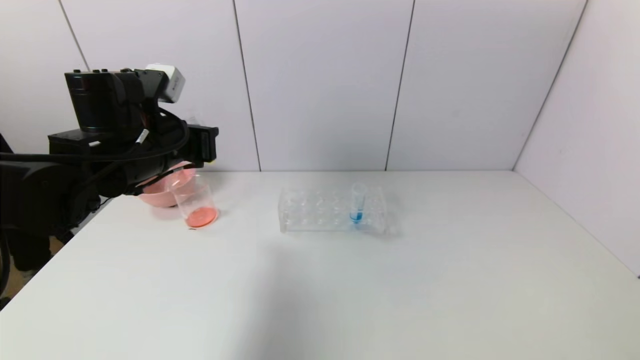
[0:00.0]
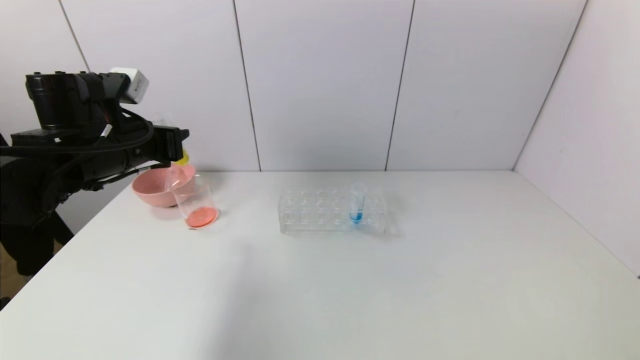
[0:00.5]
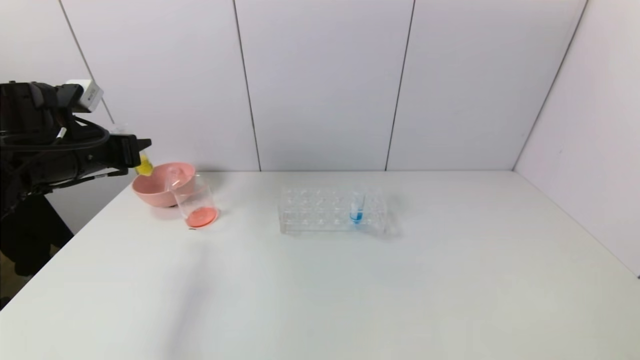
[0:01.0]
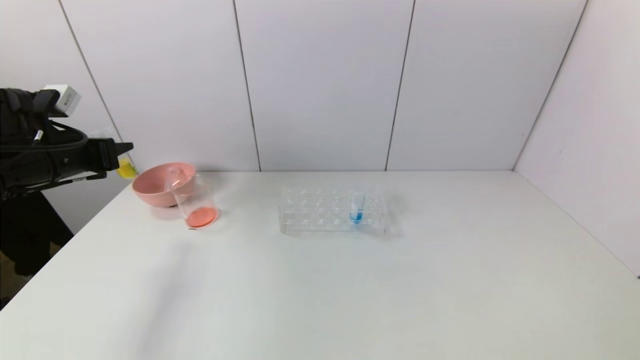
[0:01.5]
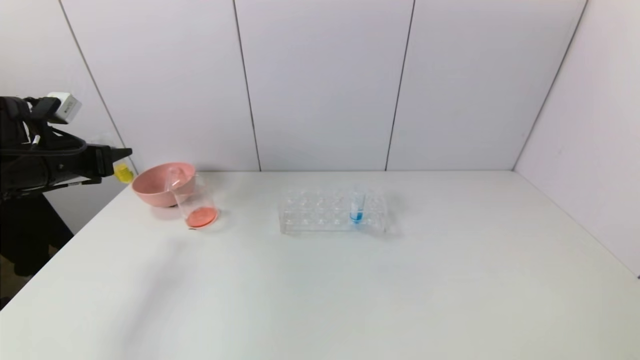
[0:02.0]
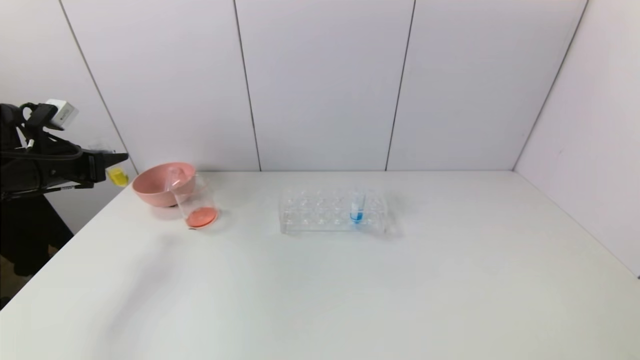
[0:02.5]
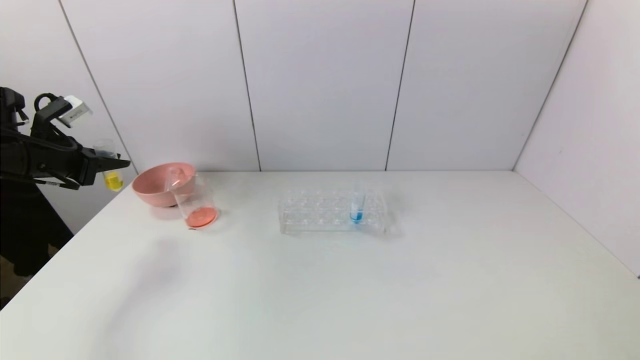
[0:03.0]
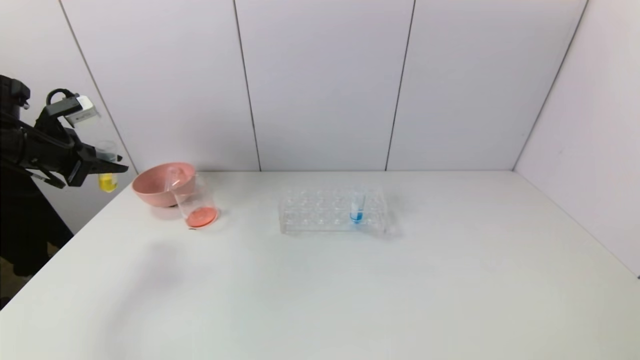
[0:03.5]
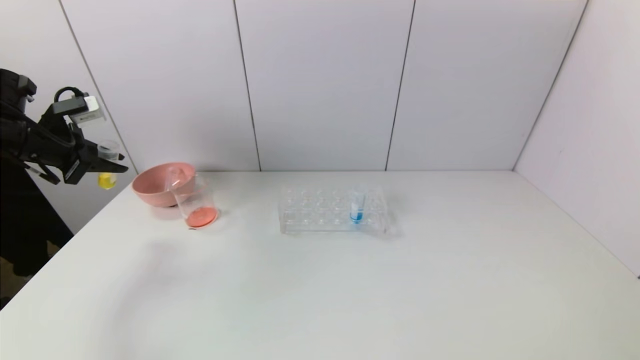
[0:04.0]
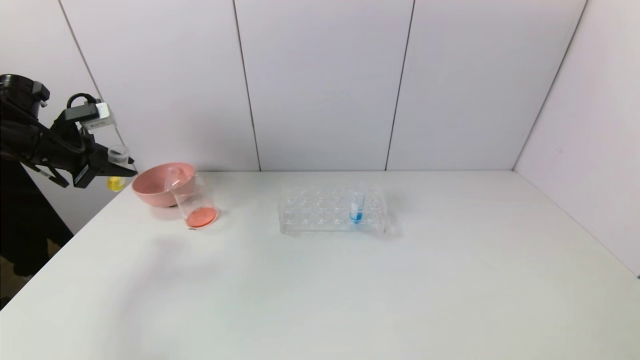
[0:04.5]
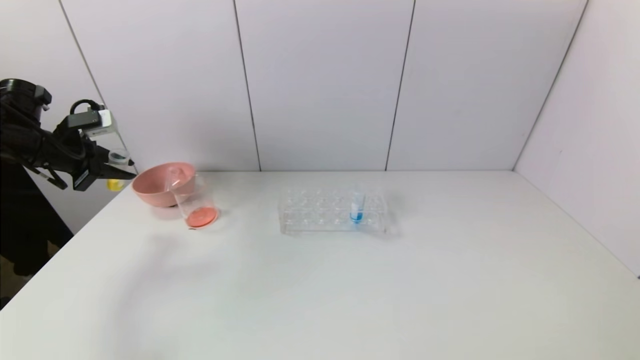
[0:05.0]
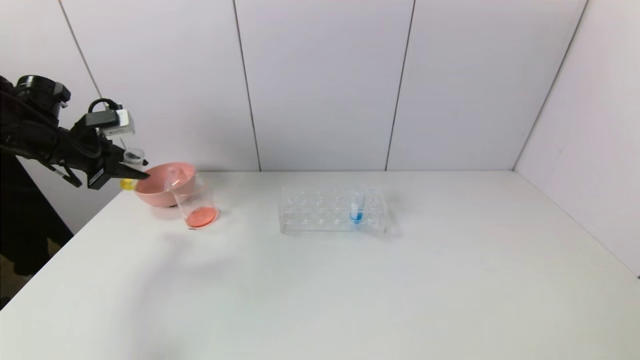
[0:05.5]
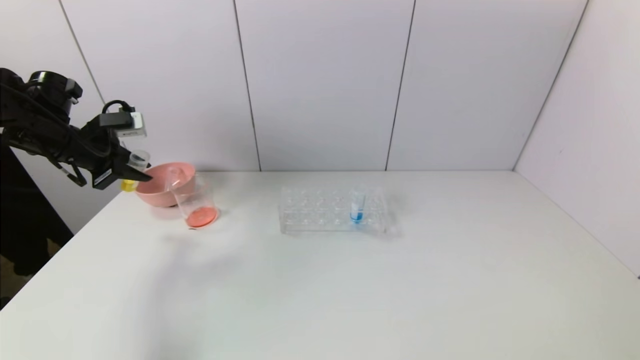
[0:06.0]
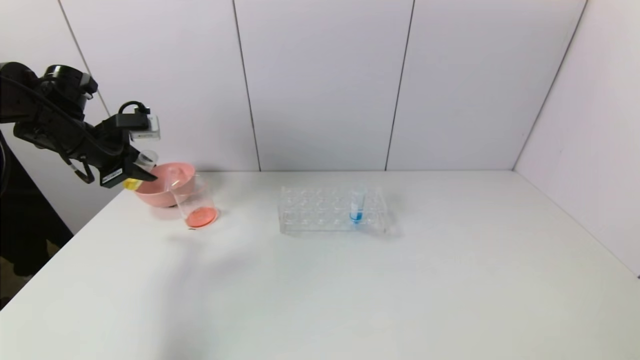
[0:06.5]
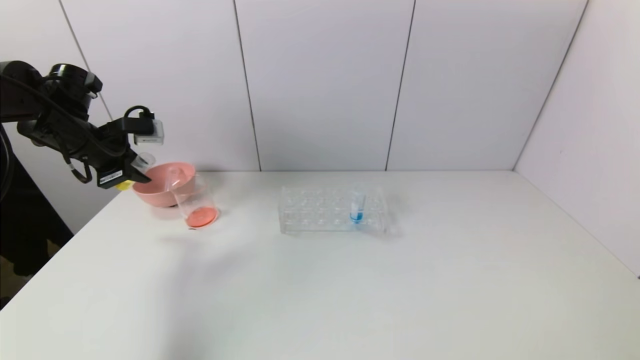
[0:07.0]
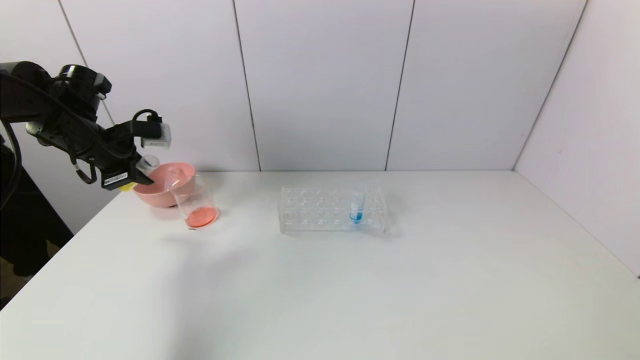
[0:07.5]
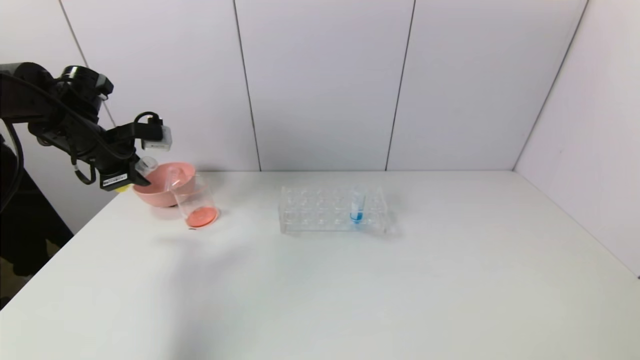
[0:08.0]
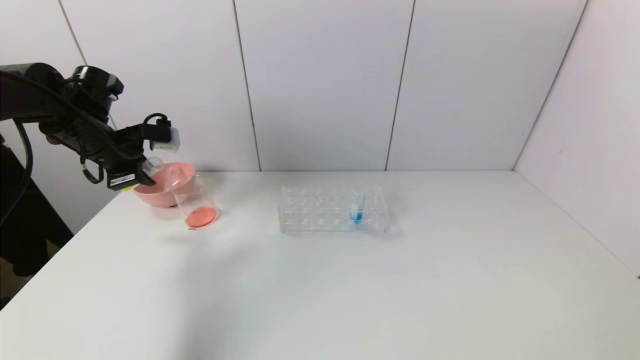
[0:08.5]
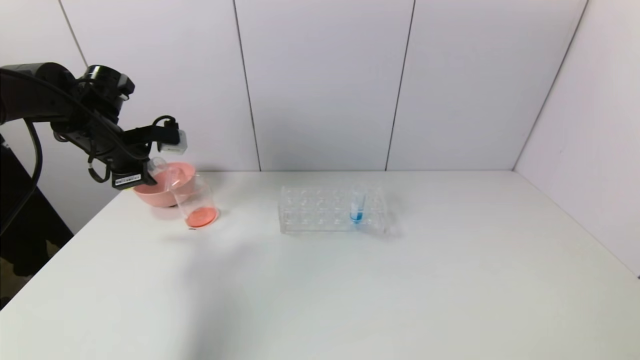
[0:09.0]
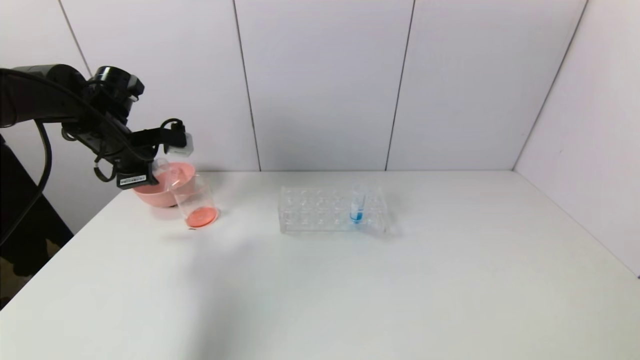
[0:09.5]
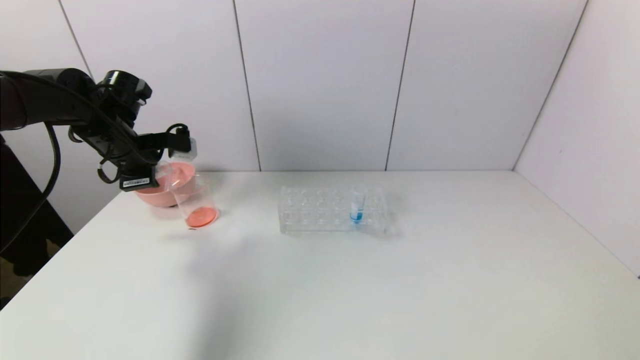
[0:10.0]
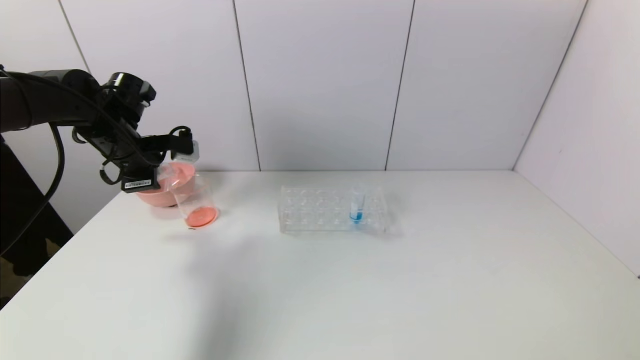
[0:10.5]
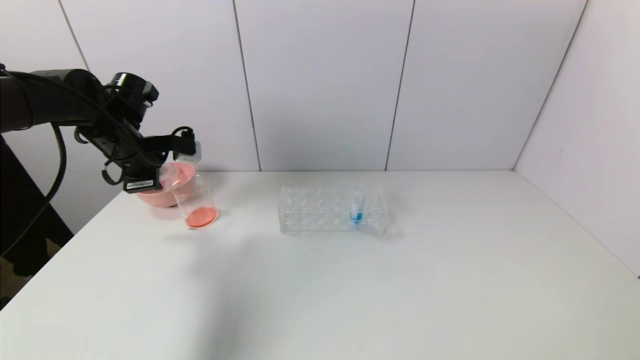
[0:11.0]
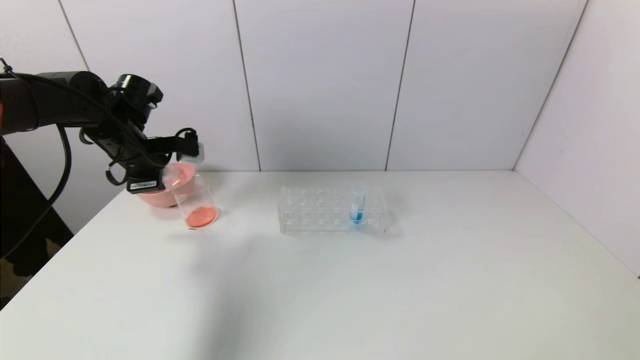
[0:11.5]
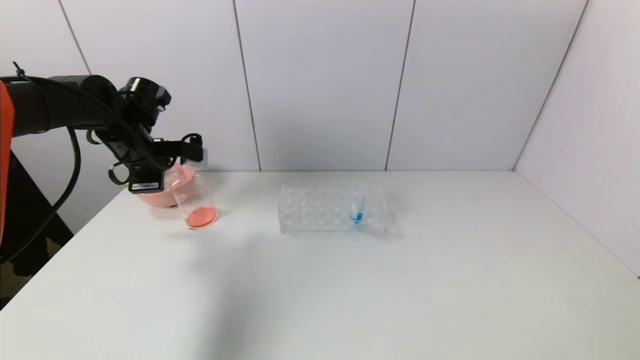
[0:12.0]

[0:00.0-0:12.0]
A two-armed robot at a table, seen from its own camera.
Task of the whole recording: pick up the test tube with yellow pigment and the test tube with red pigment by grippers and pour them into the beaker.
0.0 to 2.0 s: The left gripper travels to the left by some 20 cm.
2.0 to 4.0 s: The left gripper shifts by approximately 5 cm.
4.0 to 6.0 s: The left gripper shifts by roughly 5 cm.
6.0 to 8.0 s: The grippers make only small movements.
8.0 to 10.0 s: The grippers make only small movements.
10.0 to 12.0 s: The grippers stay close to where they were, moving slightly.

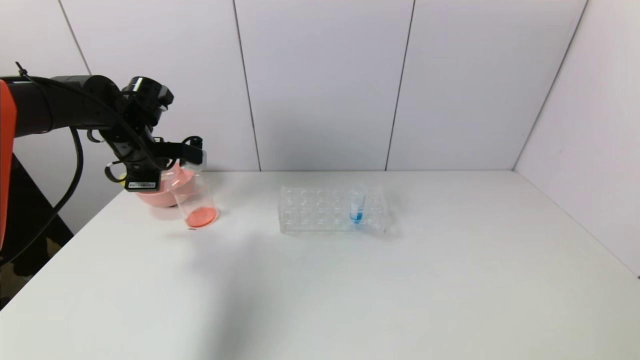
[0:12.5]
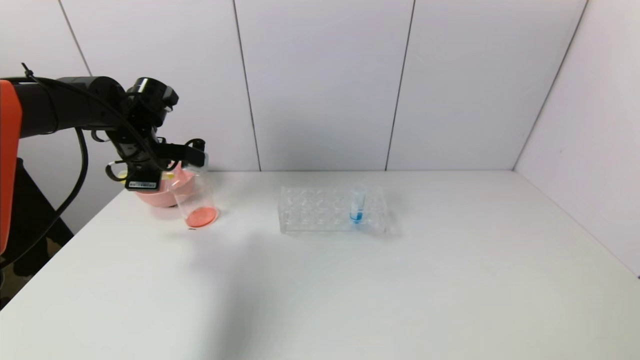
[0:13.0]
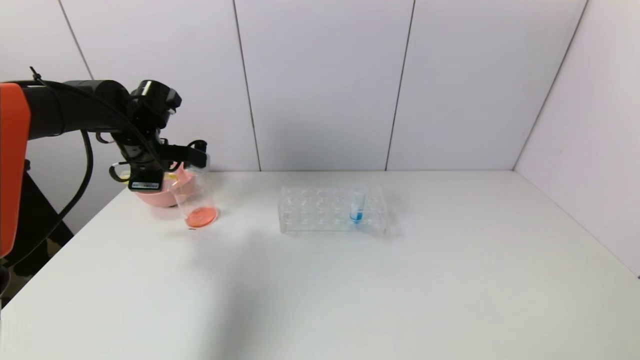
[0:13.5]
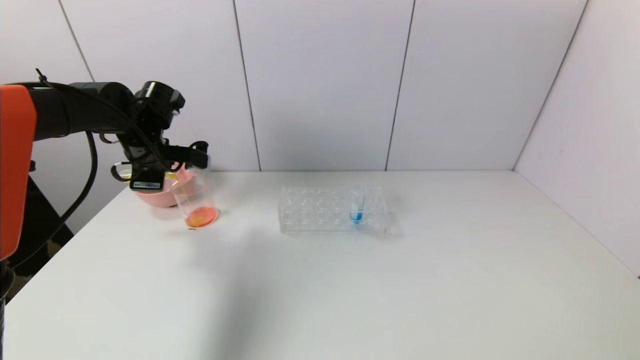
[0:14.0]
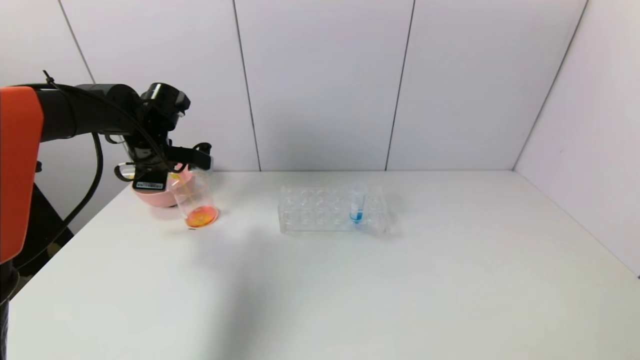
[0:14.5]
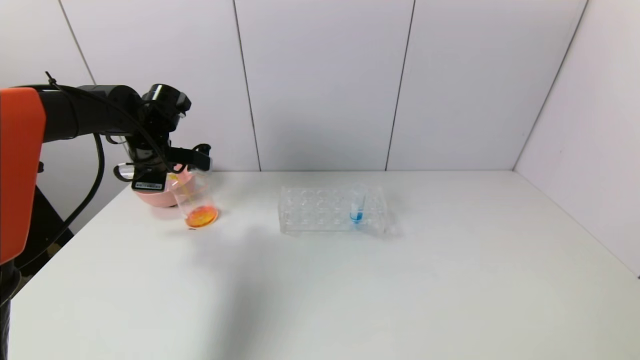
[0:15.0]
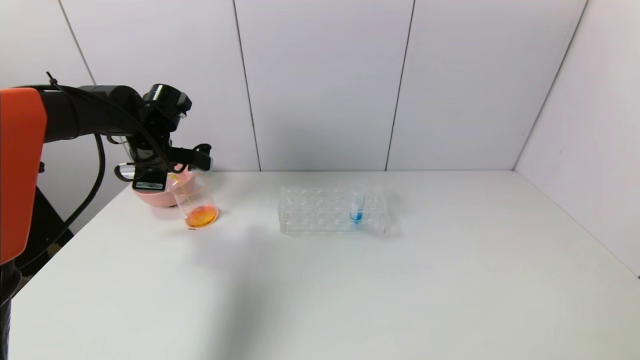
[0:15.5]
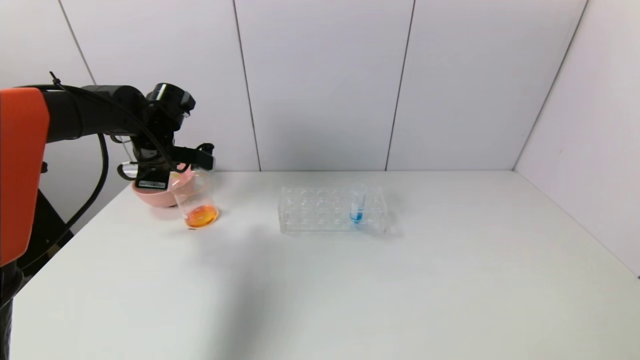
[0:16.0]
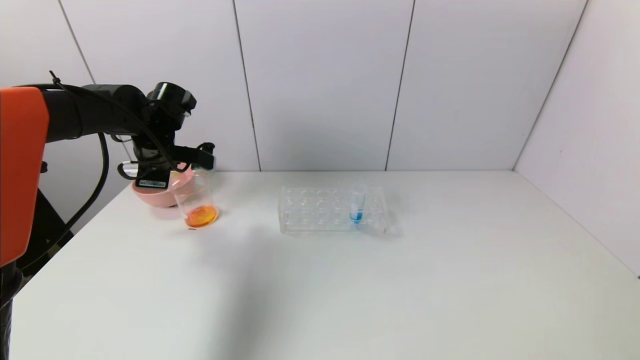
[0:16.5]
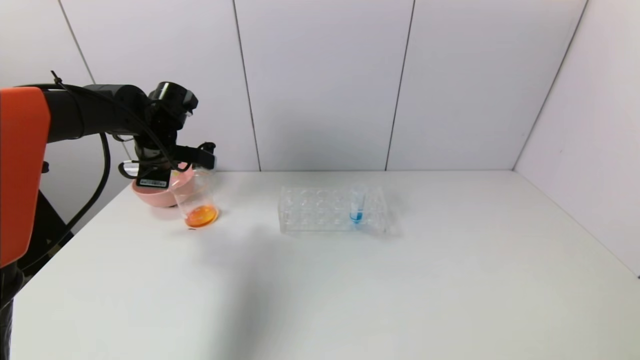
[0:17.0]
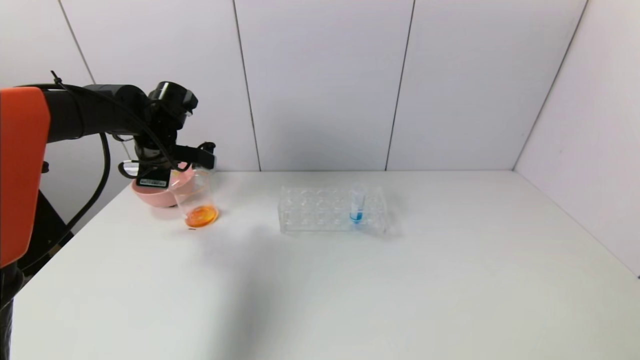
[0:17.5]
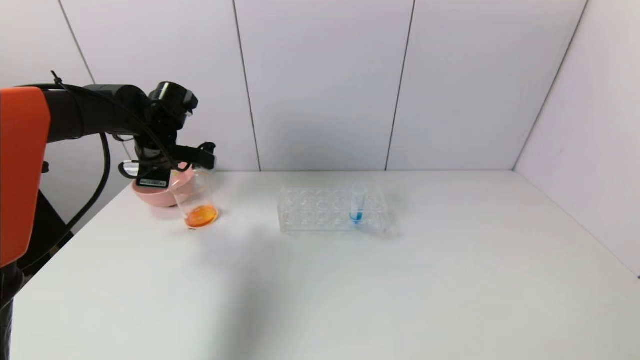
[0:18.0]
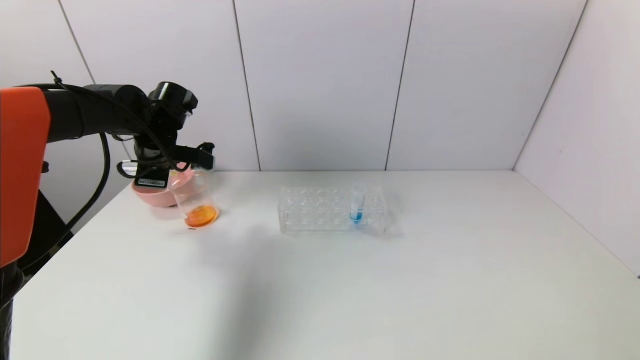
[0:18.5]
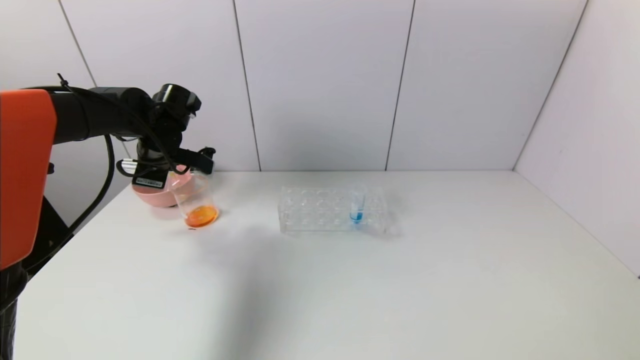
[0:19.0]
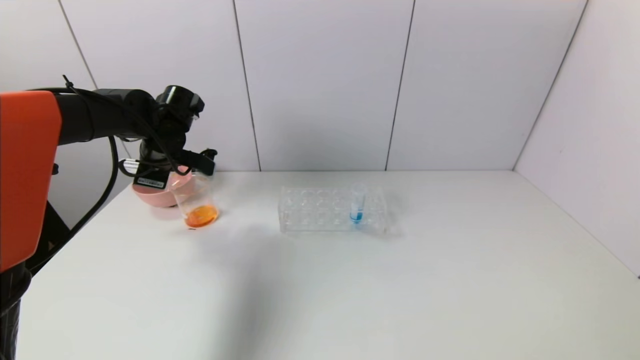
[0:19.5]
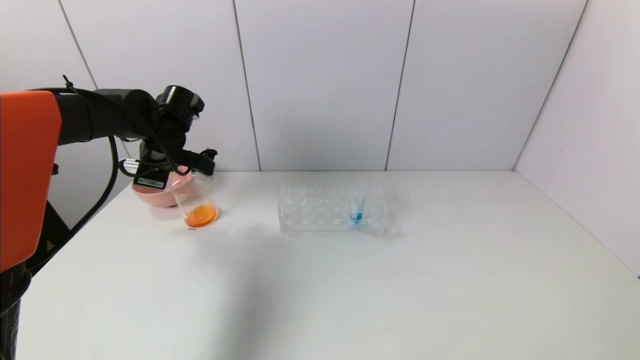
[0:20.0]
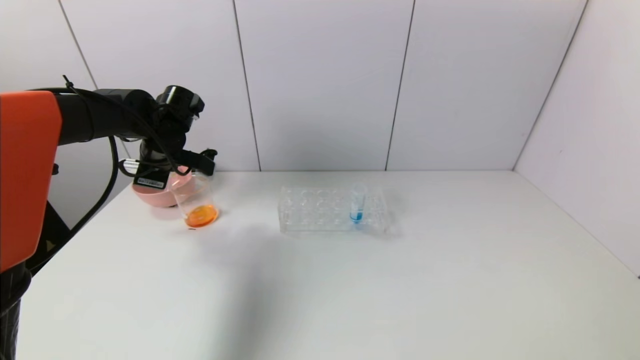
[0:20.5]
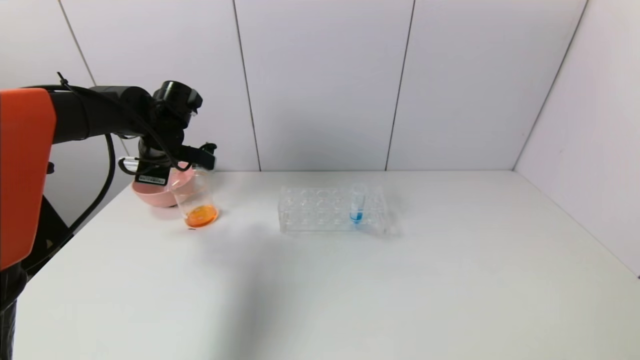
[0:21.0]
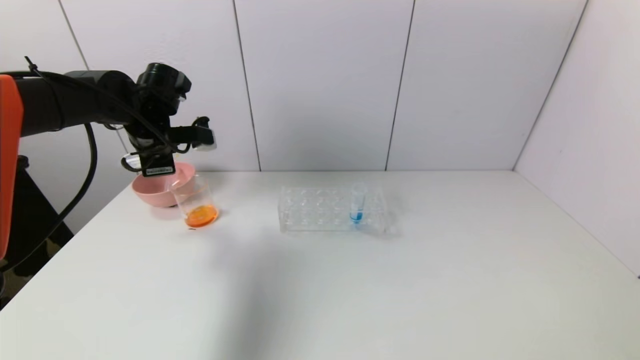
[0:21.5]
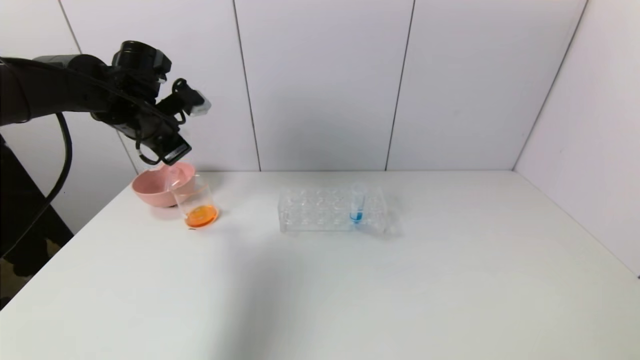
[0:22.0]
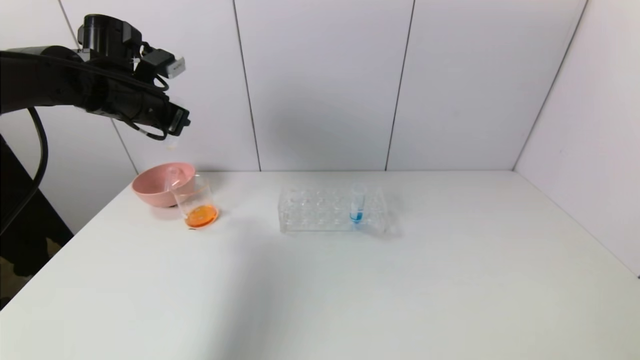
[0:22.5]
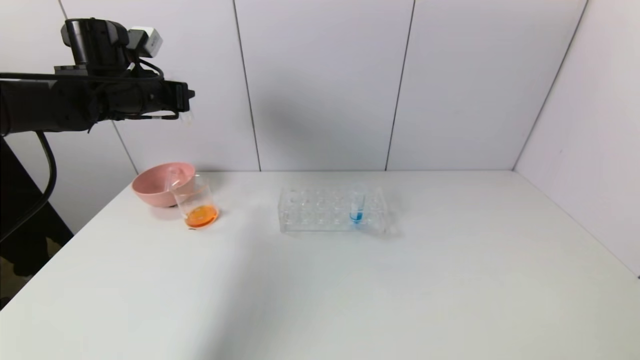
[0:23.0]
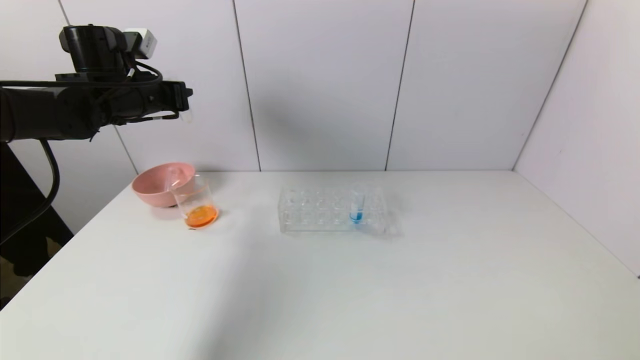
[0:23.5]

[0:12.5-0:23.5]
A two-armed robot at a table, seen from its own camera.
Task of the whole recording: pick up the test tube with yellow pigment and the test tube with red pigment by grippers and pour them into the beaker.
Step, 12.5 to 20.5 s: Pour the yellow reagent into the graduated cylinder with the left gripper.
12.5 to 14.5 s: The grippers move only a little.
14.5 to 18.0 s: The two grippers keep their place.
18.0 to 20.0 s: The grippers make only small movements.
21.5 to 23.5 s: The left gripper changes place by some 5 cm.
